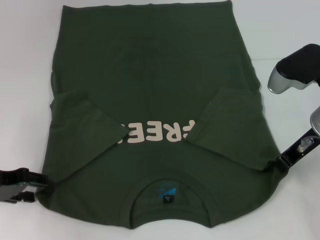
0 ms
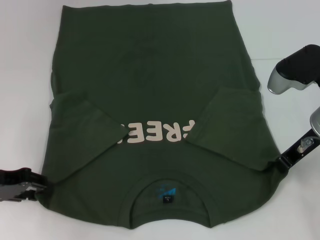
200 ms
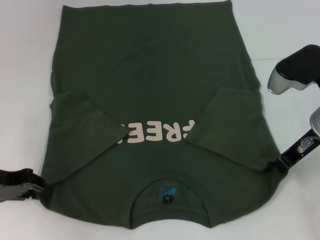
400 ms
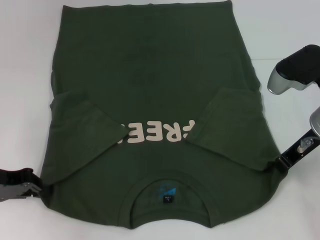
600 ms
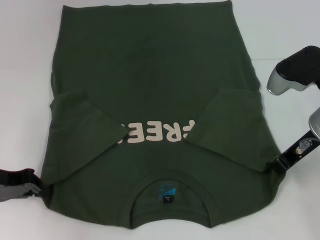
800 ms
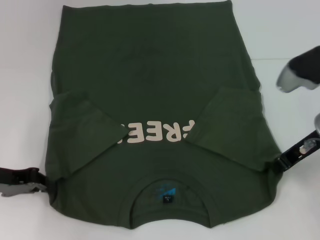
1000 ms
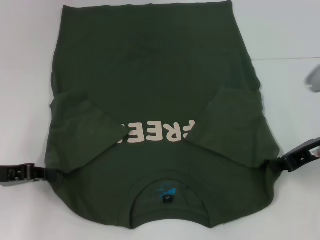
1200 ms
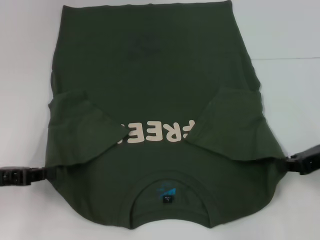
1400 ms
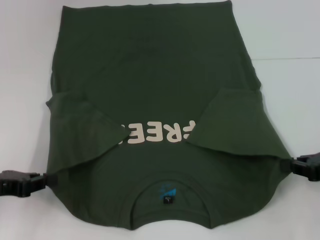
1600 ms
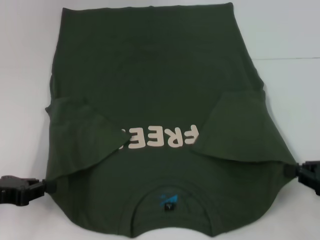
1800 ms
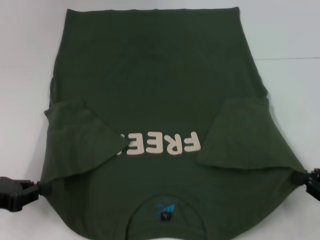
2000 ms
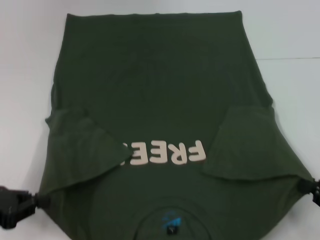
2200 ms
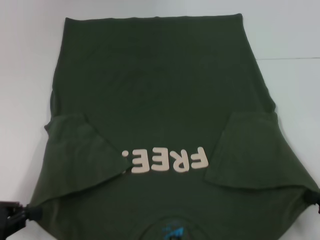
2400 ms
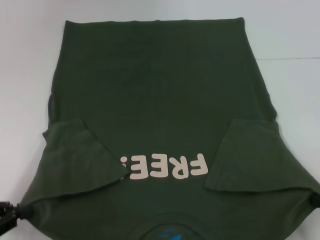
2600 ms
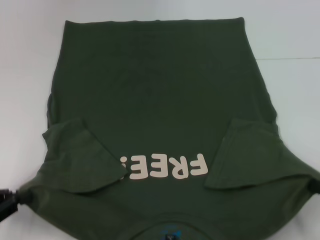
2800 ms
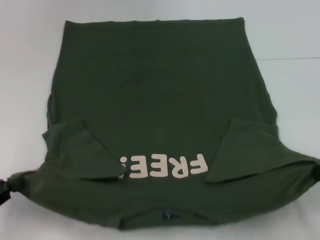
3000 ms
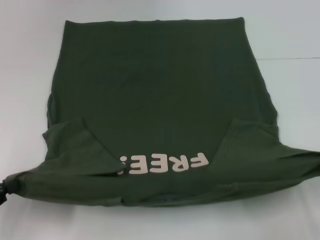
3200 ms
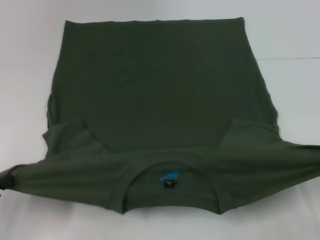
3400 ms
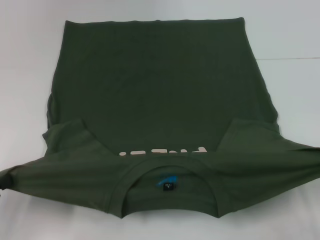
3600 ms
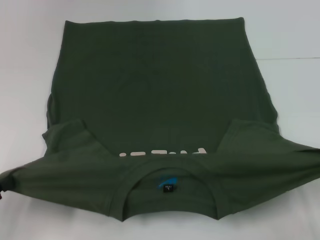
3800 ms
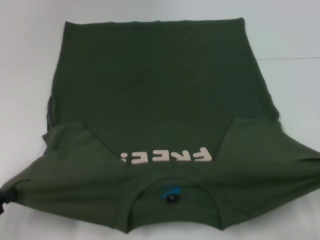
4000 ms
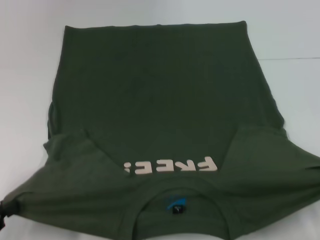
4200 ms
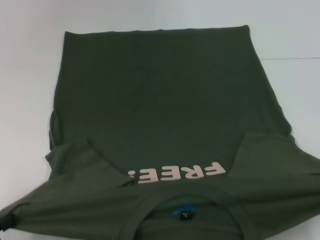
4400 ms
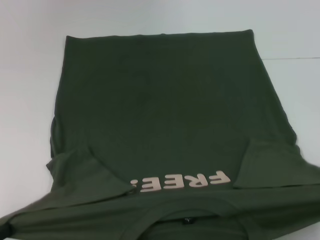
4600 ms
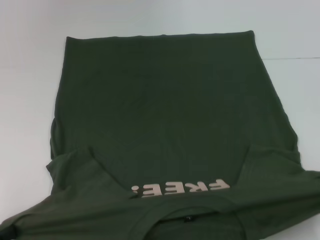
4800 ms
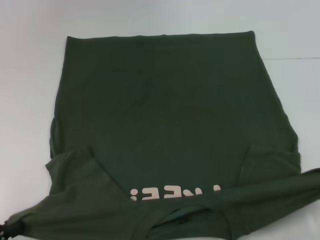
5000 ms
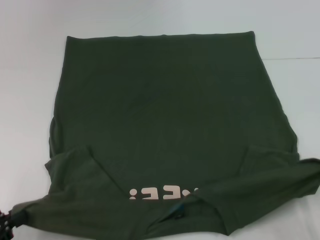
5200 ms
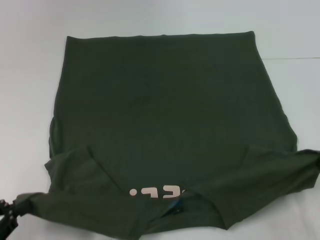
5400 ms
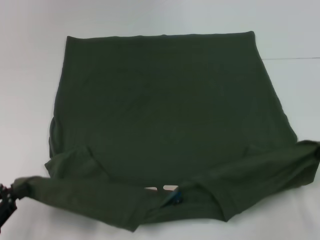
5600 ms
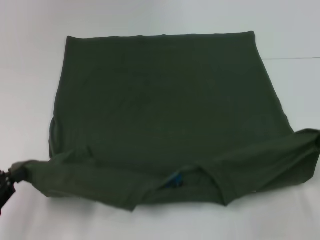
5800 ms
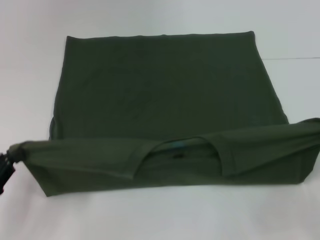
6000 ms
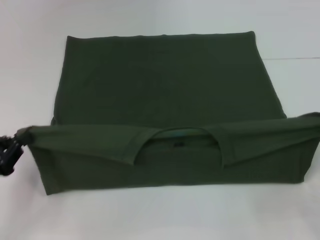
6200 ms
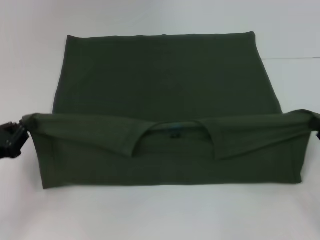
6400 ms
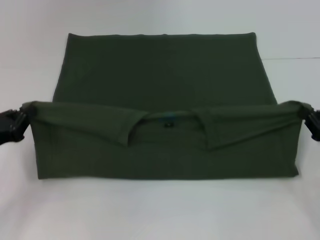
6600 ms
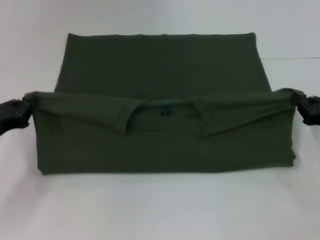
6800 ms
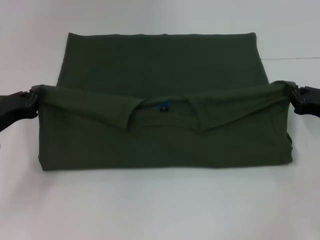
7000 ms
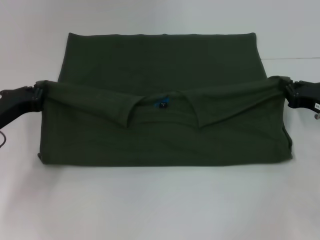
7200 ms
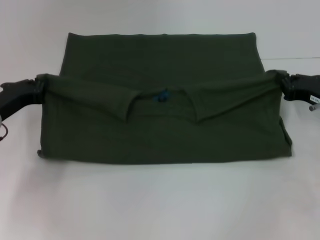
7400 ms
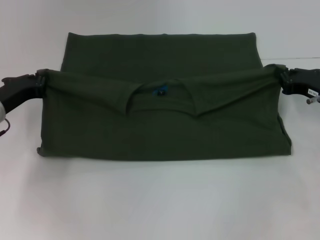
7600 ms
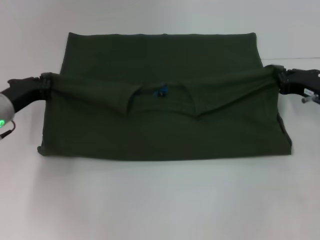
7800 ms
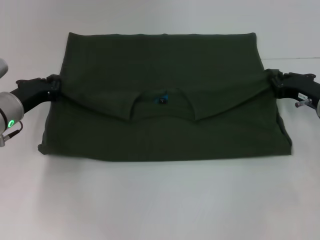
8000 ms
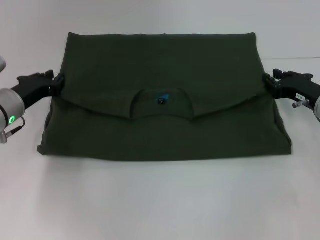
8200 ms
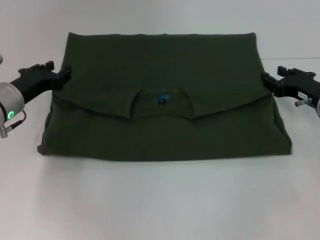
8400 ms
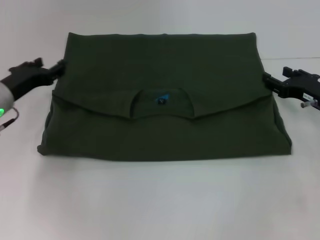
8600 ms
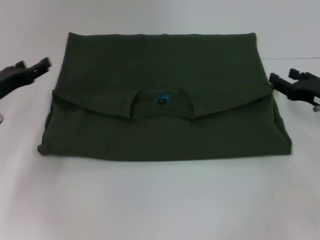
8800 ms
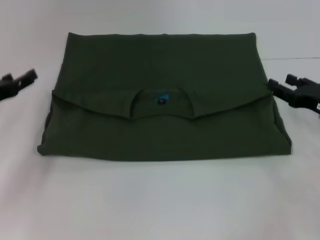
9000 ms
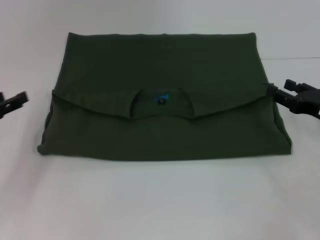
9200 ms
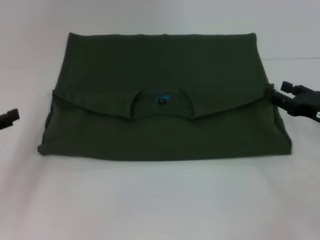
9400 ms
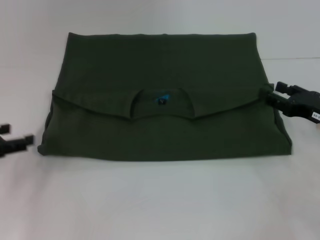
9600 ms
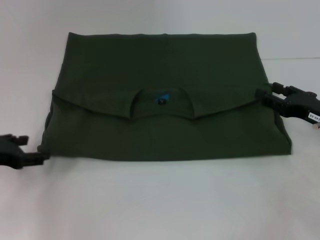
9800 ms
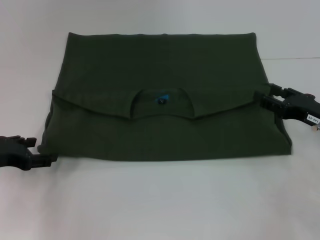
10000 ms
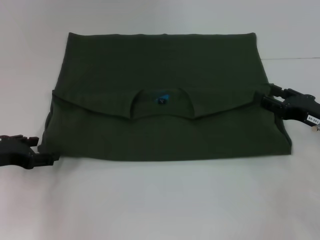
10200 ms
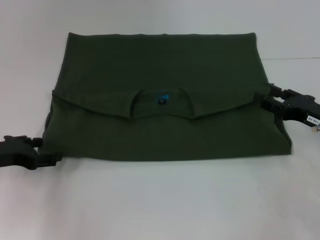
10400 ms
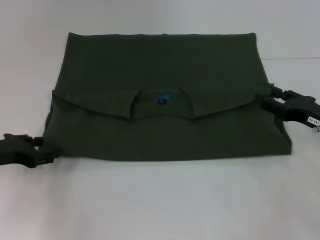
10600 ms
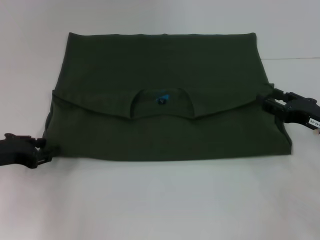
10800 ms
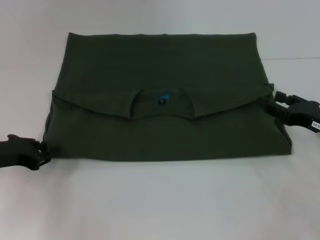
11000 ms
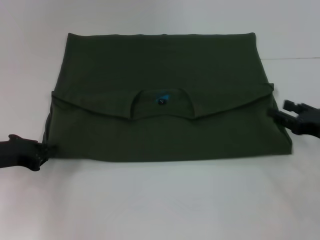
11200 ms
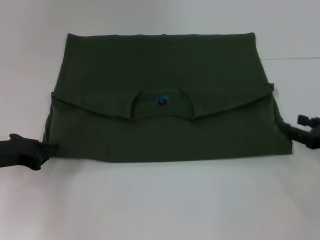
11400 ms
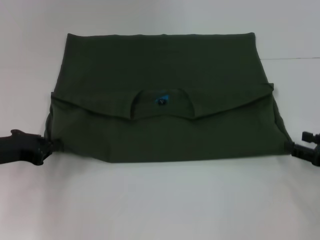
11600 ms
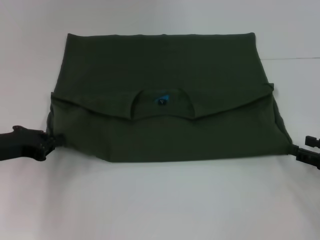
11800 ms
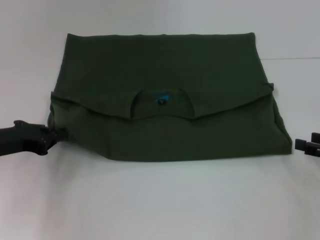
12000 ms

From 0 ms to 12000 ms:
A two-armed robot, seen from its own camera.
Step, from 800 ms to 8000 ms: Fold the clothes with your left hand.
From 0 ms to 1600 ms: The left gripper closes its fingers. Meanwhile the right gripper is displaced to the right and backward by about 15 cm.
From 1600 ms to 3000 ms: The right gripper is displaced backward by roughly 10 cm, while the left gripper is displaced backward by roughly 5 cm.
From 3000 ms to 4400 ms: Both grippers travel together backward, approximately 5 cm.
From 4400 ms to 6000 ms: The left gripper moves forward, approximately 5 cm, while the right gripper moves forward, some 10 cm.
From 6000 ms to 7600 ms: Both grippers move forward, approximately 15 cm.
From 7600 ms to 9000 ms: The right gripper opens. Meanwhile the left gripper ends up some 5 cm from where it was, and opens.
From 10400 ms to 12000 ms: The left gripper closes, while the right gripper moves to the right and backward, about 10 cm.

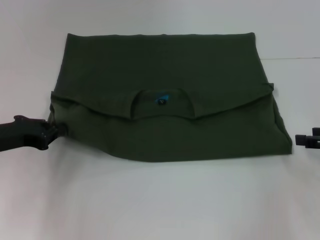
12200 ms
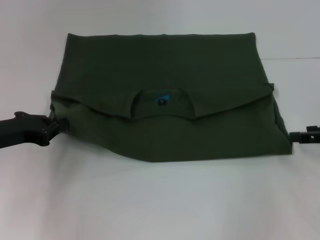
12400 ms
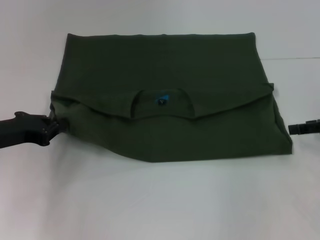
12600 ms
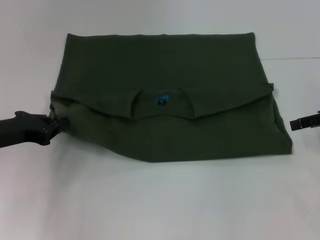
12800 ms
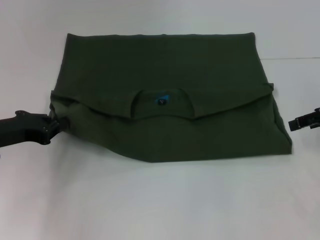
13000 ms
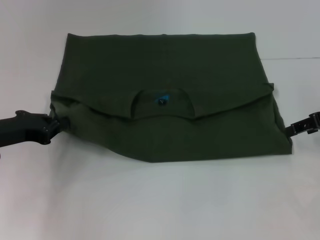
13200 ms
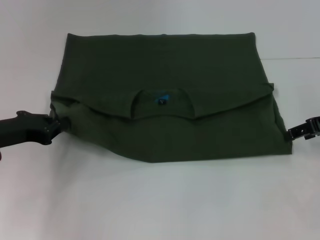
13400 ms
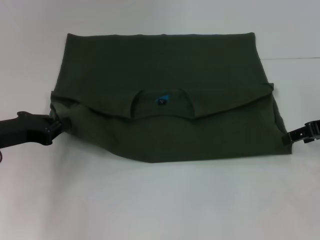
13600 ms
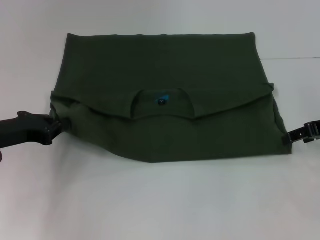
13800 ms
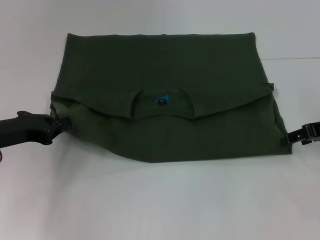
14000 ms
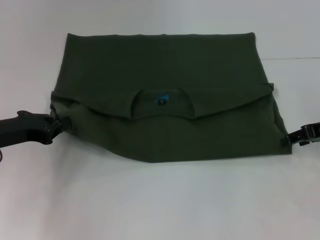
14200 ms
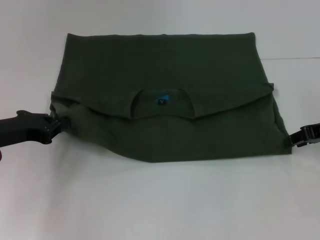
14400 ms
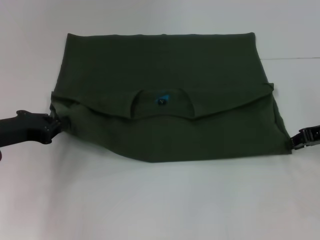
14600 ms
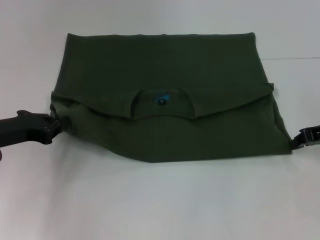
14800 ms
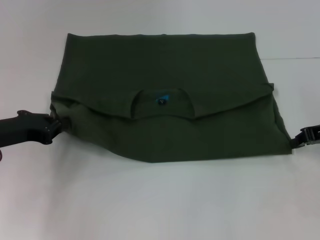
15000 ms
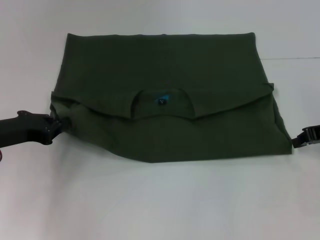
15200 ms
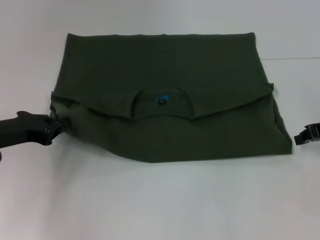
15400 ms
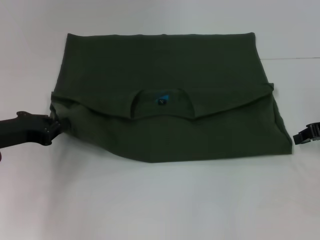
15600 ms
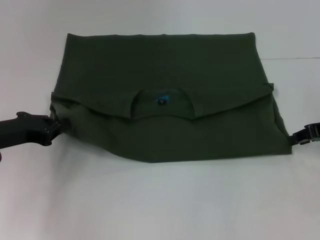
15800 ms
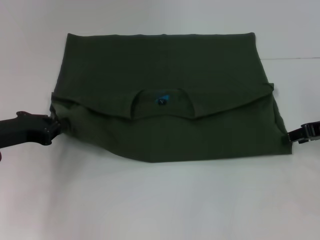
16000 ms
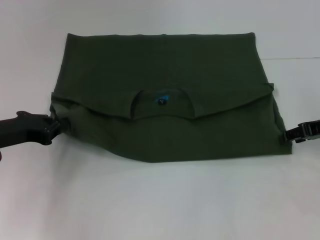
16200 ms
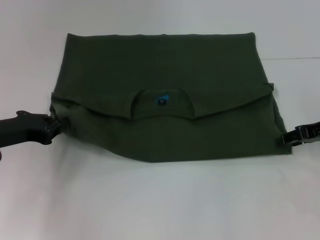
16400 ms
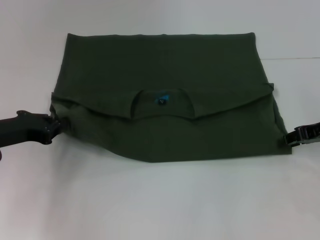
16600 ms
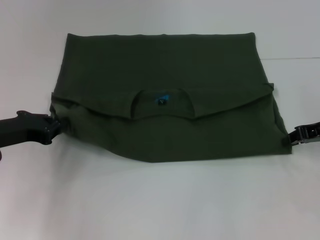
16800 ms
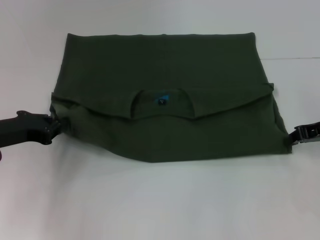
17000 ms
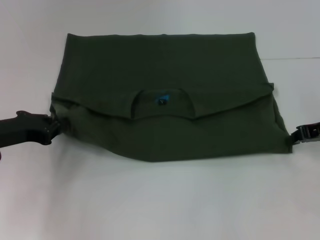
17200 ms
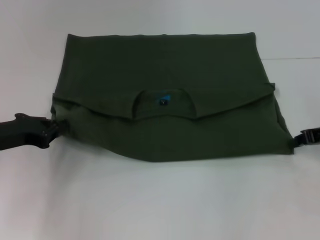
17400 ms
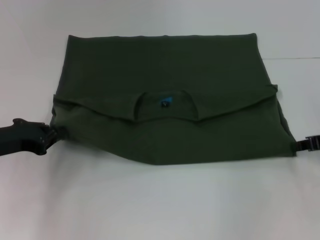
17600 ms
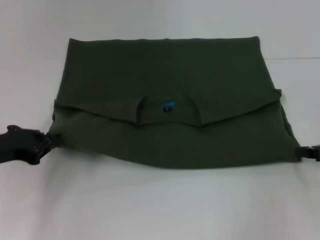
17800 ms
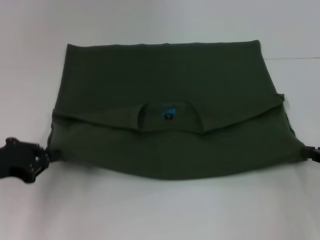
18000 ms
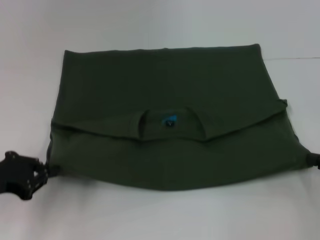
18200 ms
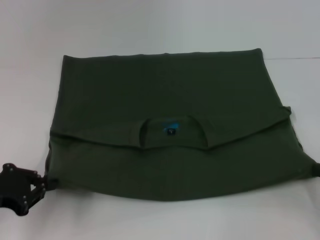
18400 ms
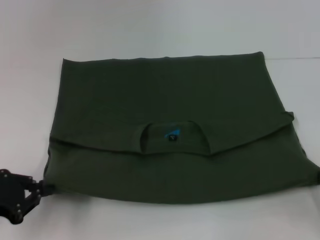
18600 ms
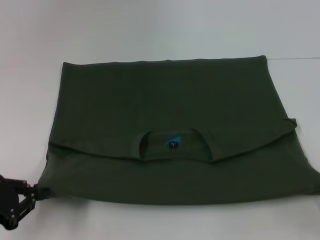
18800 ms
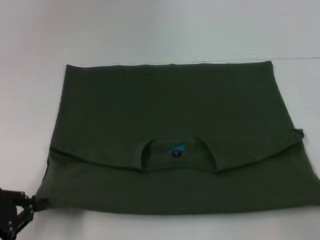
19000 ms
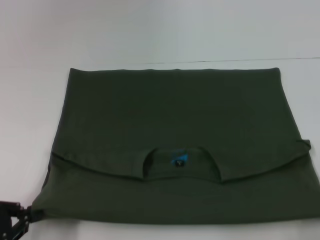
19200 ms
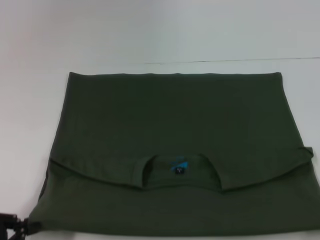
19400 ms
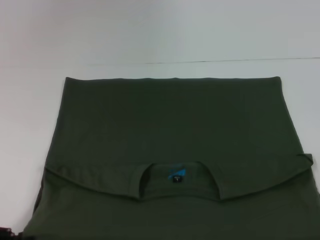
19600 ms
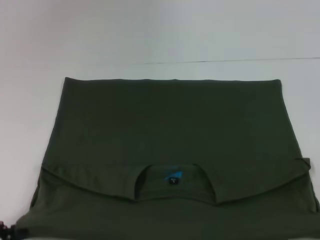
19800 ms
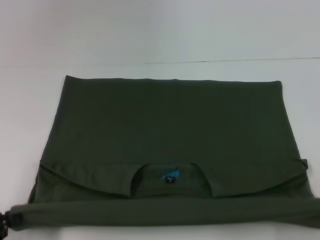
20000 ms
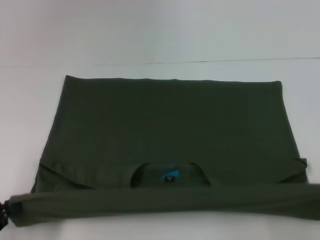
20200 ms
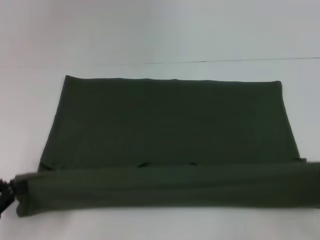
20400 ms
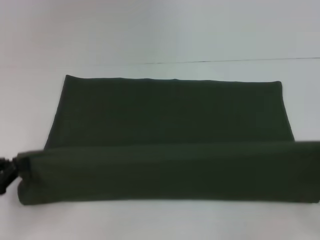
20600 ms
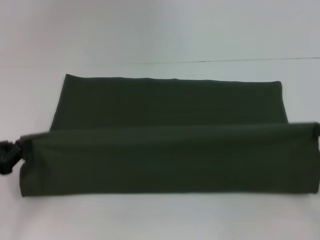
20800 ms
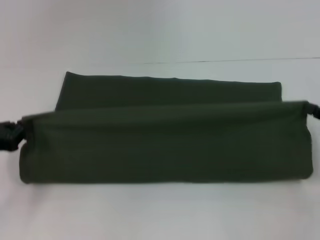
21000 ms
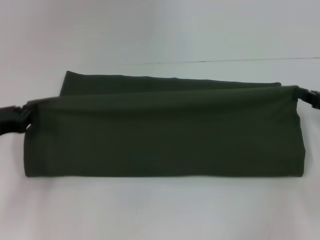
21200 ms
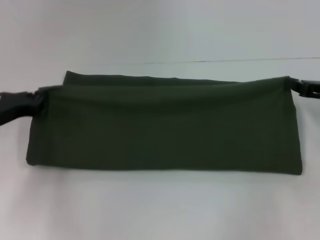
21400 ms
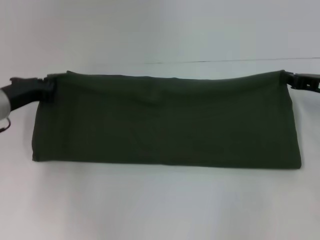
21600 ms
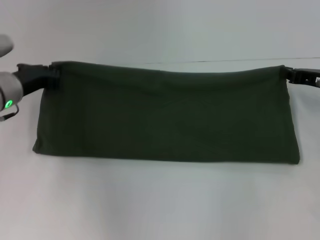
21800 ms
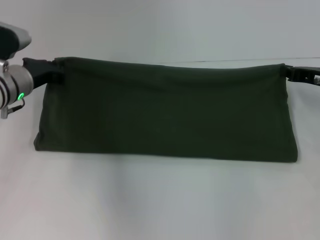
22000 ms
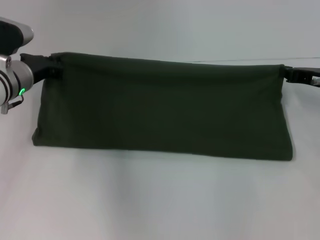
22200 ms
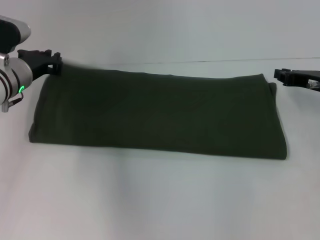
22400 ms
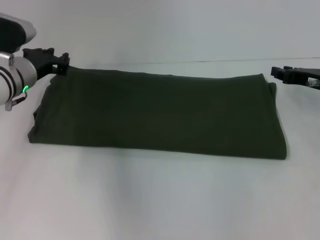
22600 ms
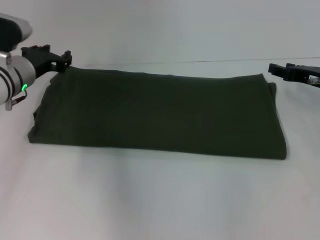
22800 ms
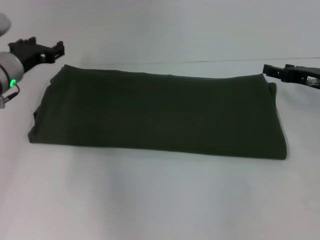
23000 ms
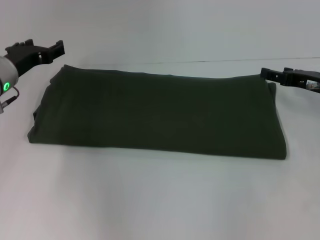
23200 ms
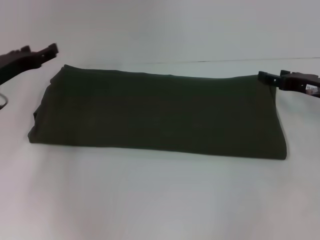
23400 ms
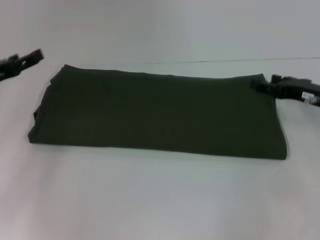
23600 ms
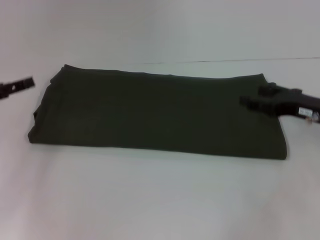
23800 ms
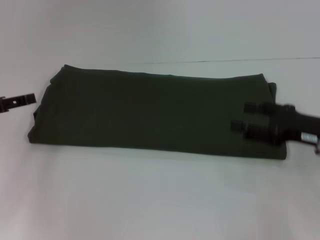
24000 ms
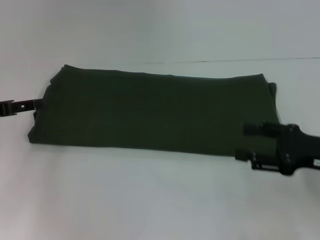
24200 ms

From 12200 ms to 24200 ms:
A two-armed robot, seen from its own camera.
Step, from 12200 ms to 19600 ms: Pull the clothes with your left hand.
Step, from 12200 ms to 19600 ms: Pull the clothes with your right hand.
Step, from 19800 ms to 22200 ms: Fold the clothes with your right hand.
From 12200 ms to 13800 ms: The right gripper is displaced forward by approximately 5 cm.
From 16600 ms to 18200 ms: The left gripper heads backward, covering some 5 cm, while the right gripper moves backward and to the right, about 15 cm, and closes its fingers.
From 18200 ms to 19800 ms: The two grippers go roughly 15 cm backward.
From 19800 ms to 21200 ms: Both grippers travel together forward, roughly 20 cm.
From 21200 ms to 22600 ms: The left gripper heads forward and to the right, covering approximately 15 cm, while the right gripper moves forward, roughly 5 cm.
From 22600 ms to 24200 ms: The left gripper heads to the left and backward, covering approximately 15 cm, and opens up. The right gripper is displaced backward by approximately 15 cm, and opens up.
